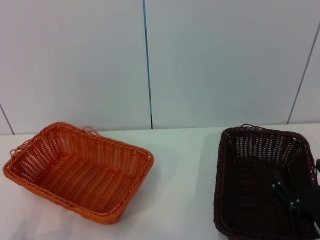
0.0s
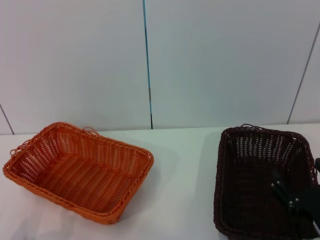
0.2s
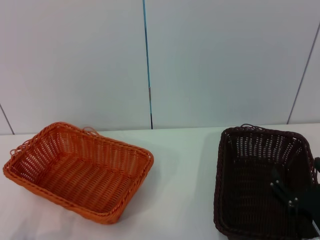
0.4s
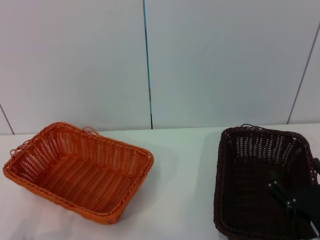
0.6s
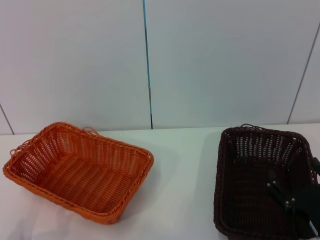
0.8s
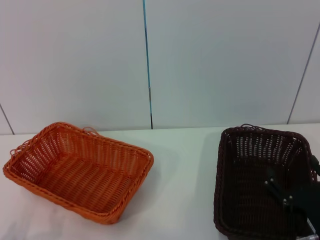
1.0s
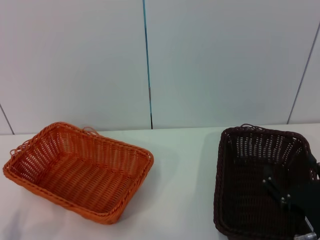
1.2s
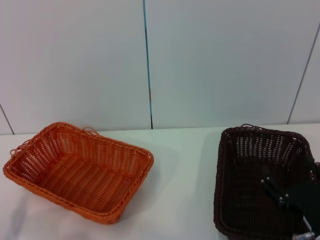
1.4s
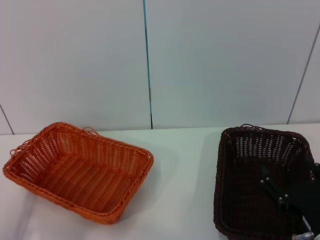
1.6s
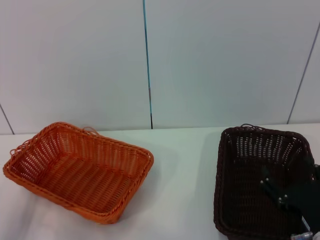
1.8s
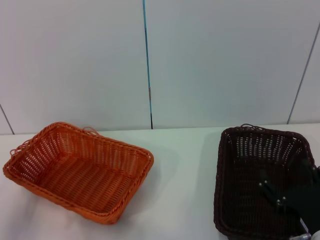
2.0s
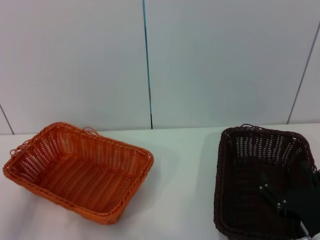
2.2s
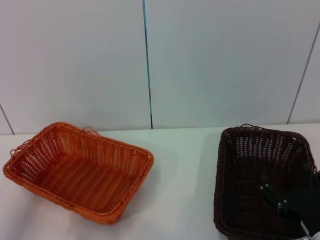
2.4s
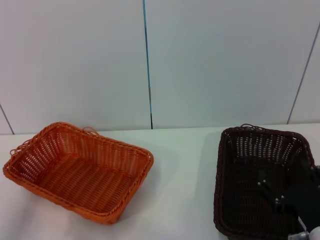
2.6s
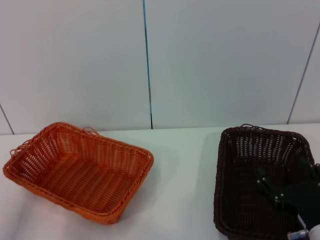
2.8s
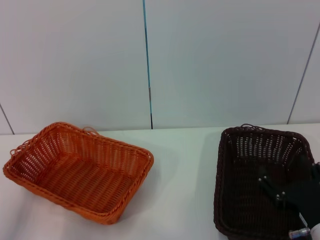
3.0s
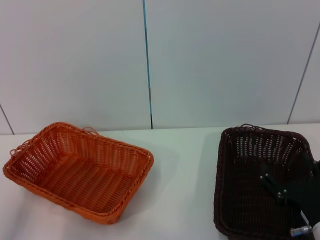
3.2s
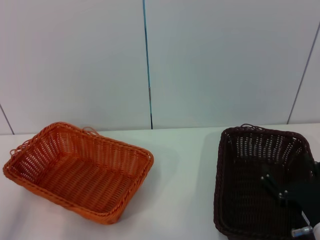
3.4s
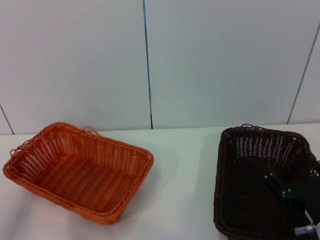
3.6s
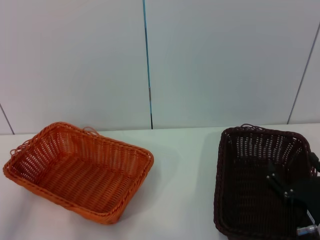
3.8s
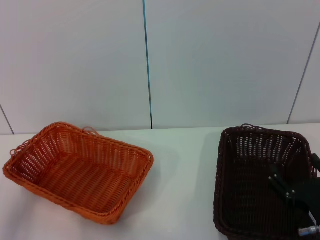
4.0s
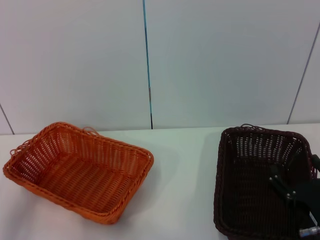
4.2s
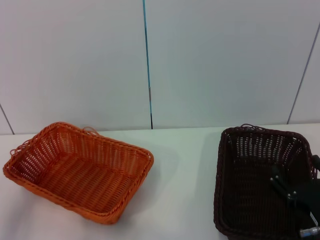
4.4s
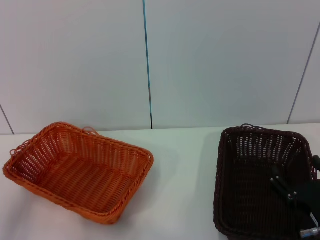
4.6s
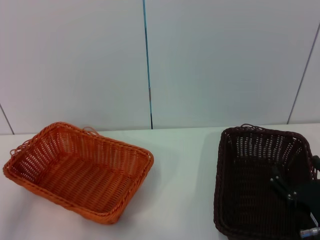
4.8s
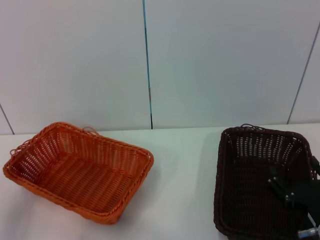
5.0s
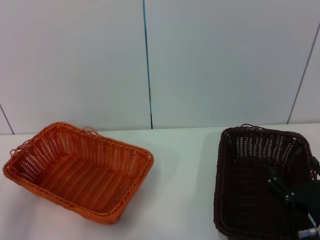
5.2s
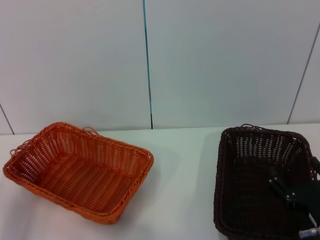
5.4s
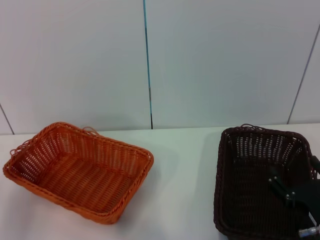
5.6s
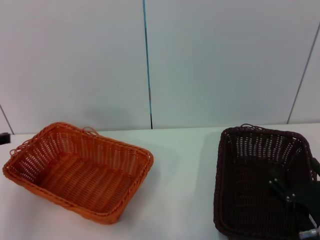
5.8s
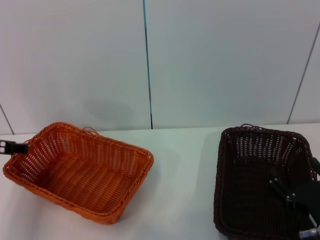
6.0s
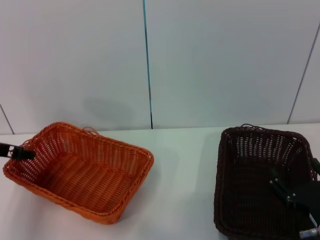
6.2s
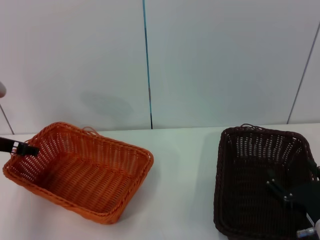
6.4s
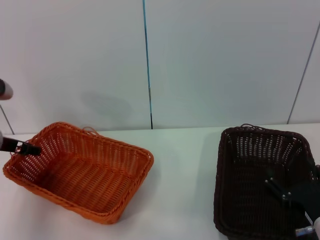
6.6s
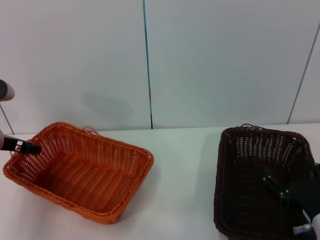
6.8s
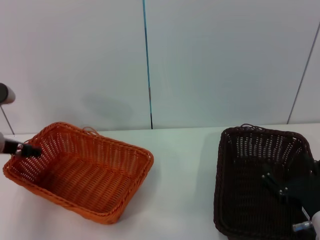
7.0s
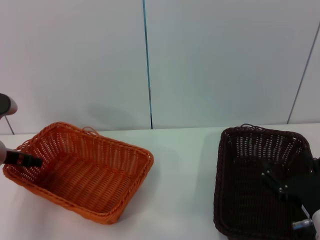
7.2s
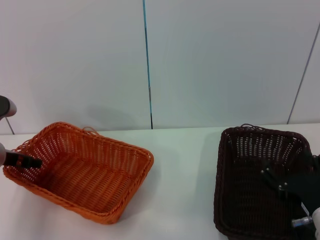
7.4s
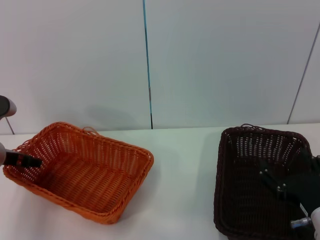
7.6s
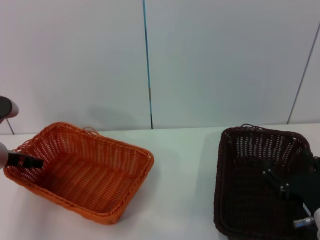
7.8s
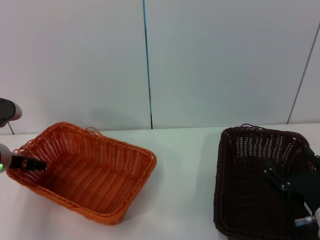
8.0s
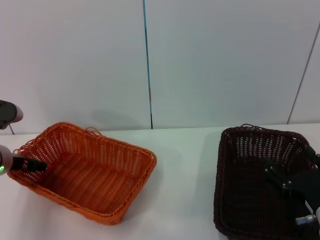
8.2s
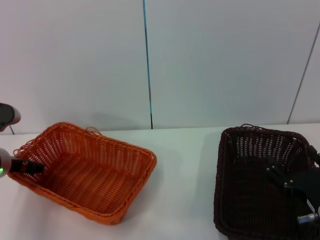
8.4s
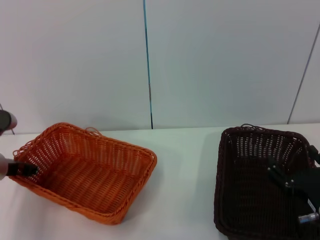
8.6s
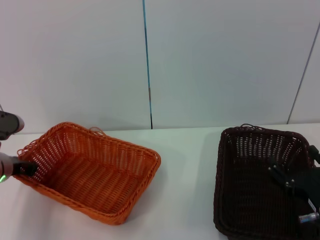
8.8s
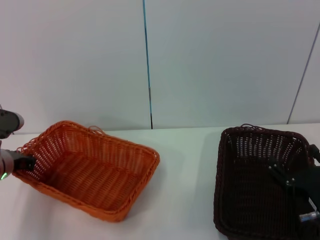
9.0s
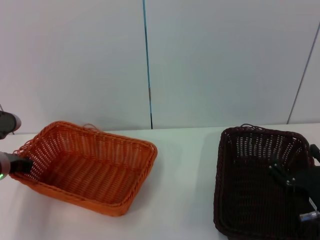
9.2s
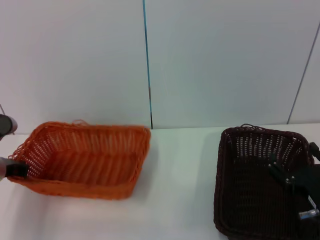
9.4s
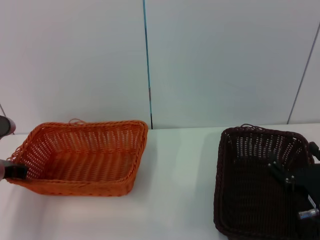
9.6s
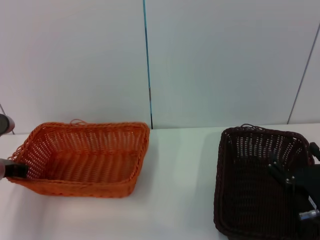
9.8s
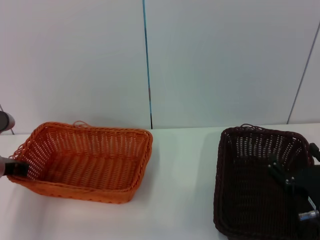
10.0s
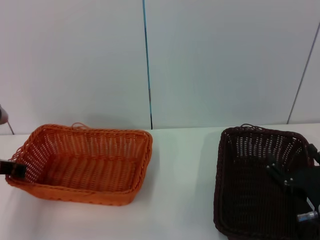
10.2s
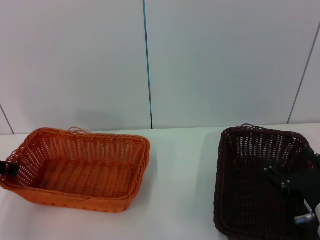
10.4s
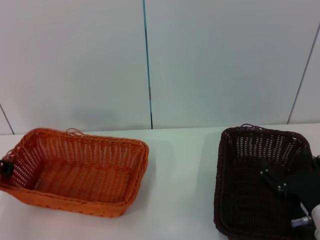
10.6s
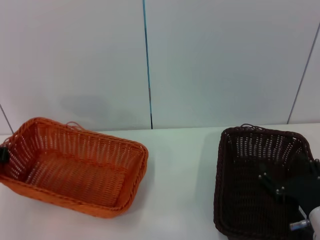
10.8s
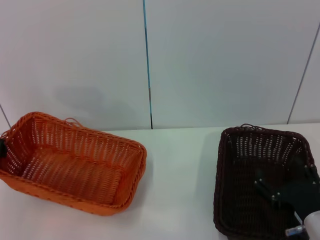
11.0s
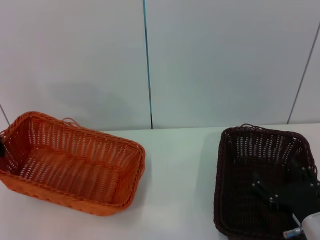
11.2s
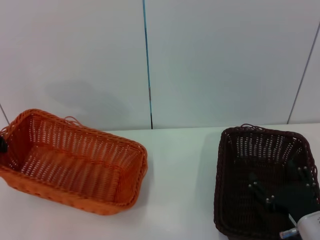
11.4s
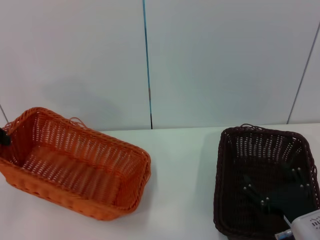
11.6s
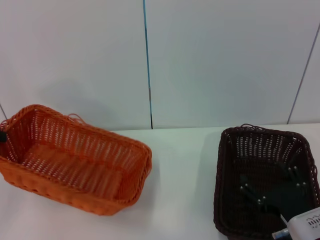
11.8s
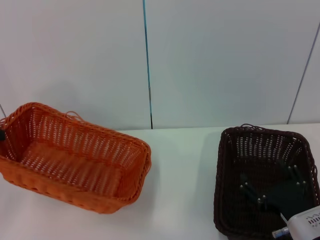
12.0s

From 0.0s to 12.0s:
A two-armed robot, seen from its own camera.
Step, from 0.0s to 10.6s: Pick up the light basket with the left gripper.
From 4.4s to 6.0s: The left gripper goes roughly 10 cm forward.
From 6.0s to 7.6s: The left gripper shifts roughly 5 cm downward.
From 7.6s to 9.0s: The left gripper closes.
From 9.0s to 10.4s: The left gripper moves roughly 5 cm.
From 10.4s to 12.0s: The left gripper travels upward and to the left by approximately 10 cm.

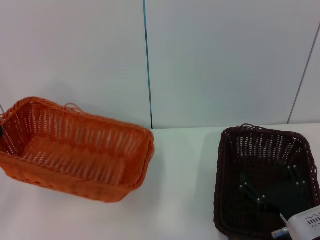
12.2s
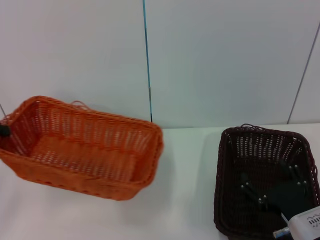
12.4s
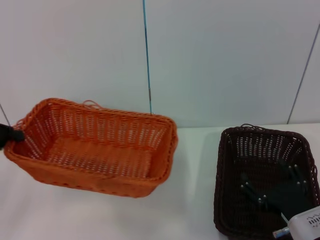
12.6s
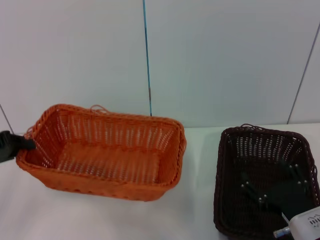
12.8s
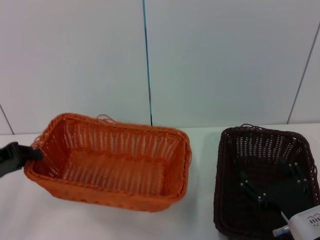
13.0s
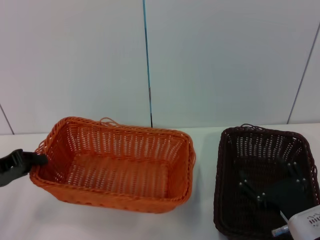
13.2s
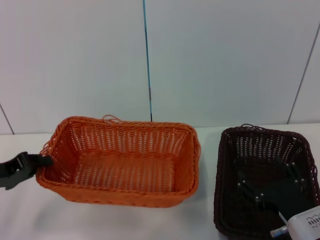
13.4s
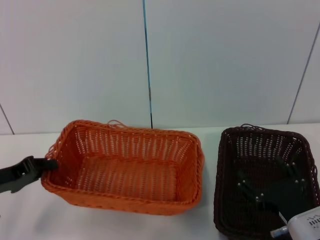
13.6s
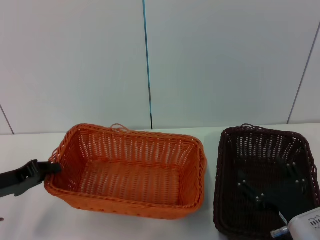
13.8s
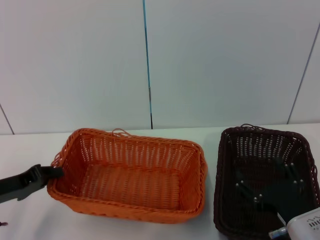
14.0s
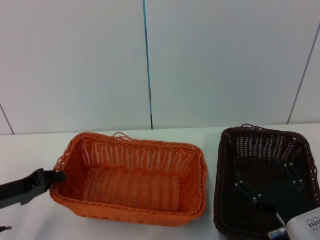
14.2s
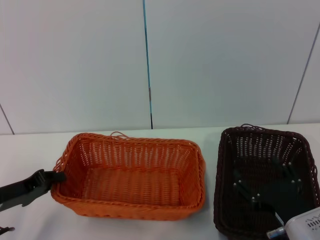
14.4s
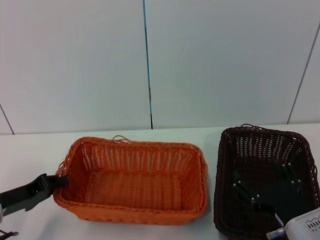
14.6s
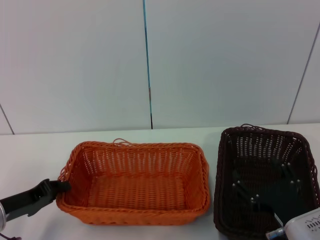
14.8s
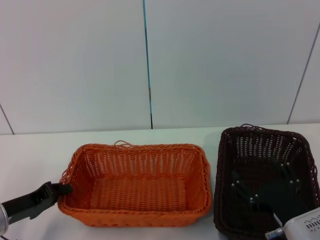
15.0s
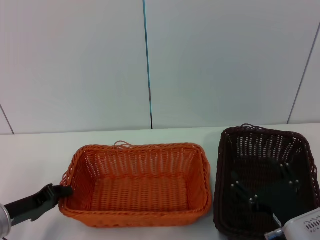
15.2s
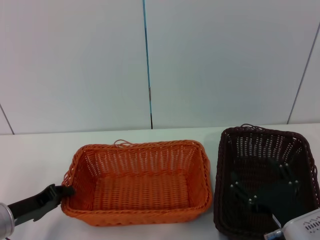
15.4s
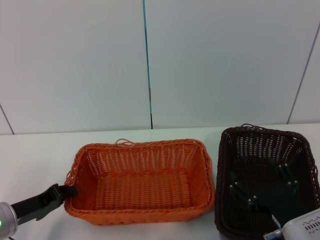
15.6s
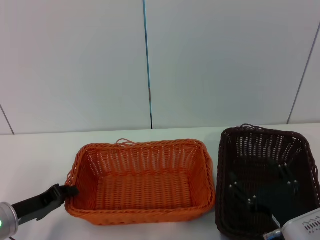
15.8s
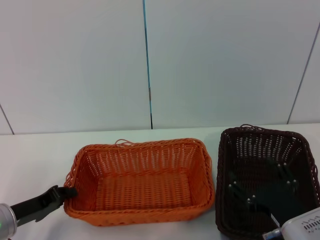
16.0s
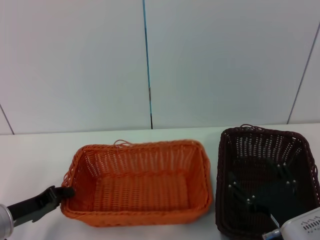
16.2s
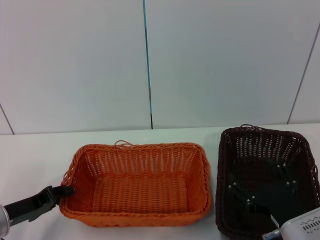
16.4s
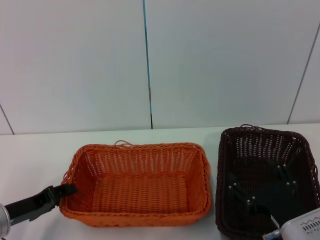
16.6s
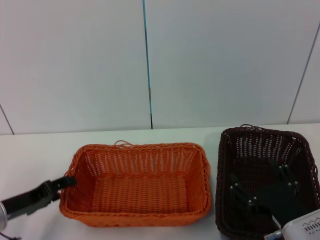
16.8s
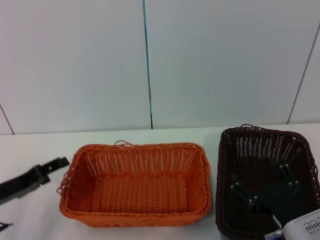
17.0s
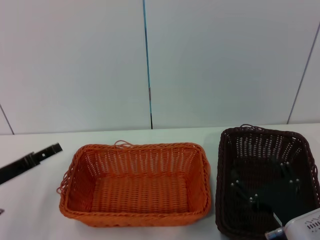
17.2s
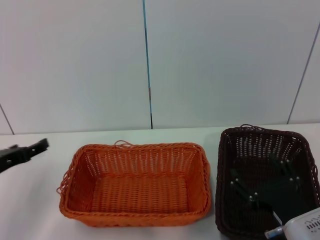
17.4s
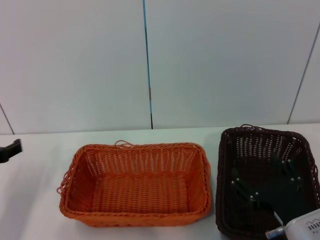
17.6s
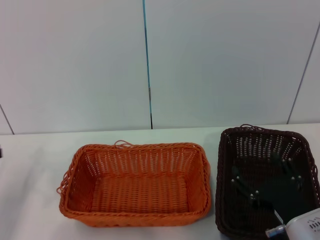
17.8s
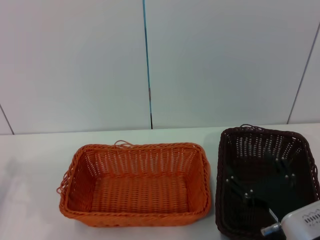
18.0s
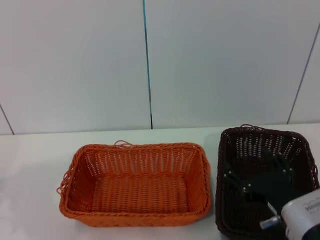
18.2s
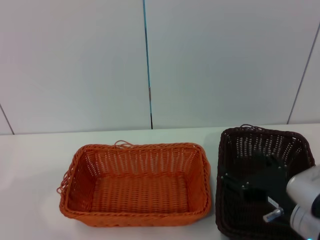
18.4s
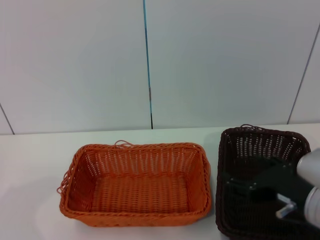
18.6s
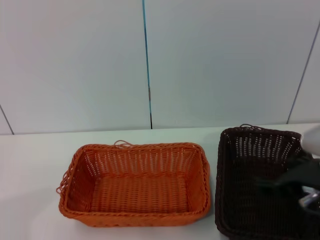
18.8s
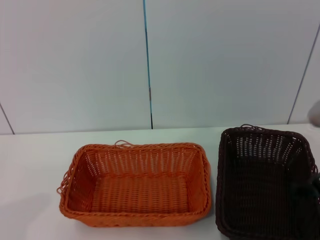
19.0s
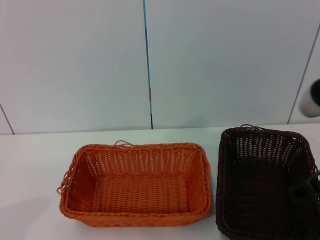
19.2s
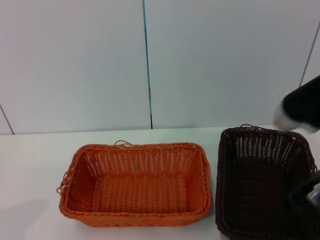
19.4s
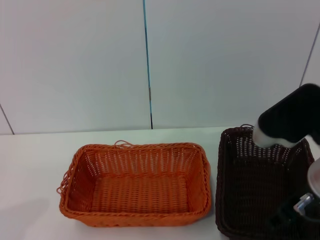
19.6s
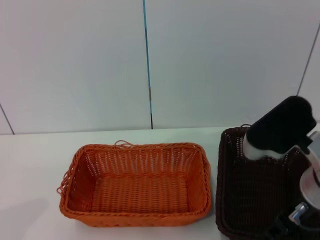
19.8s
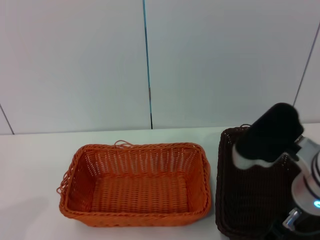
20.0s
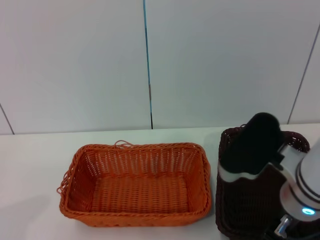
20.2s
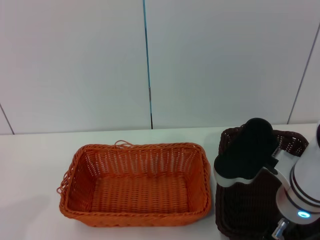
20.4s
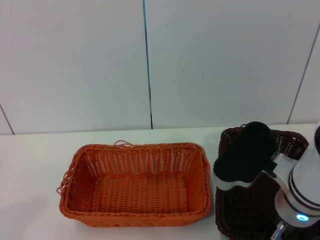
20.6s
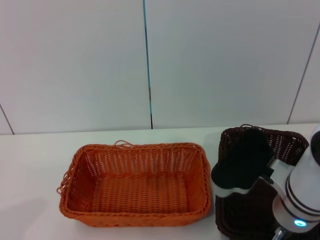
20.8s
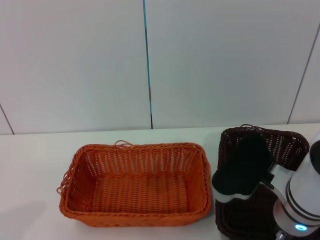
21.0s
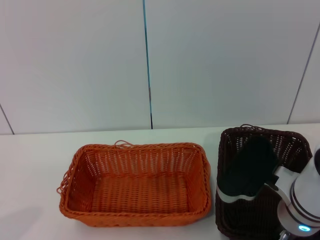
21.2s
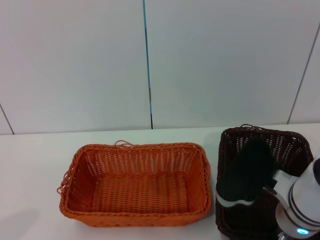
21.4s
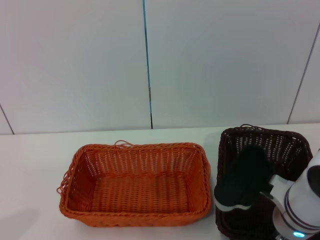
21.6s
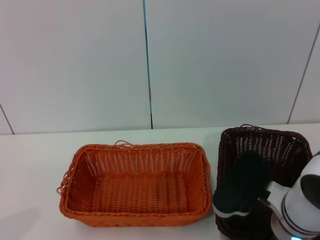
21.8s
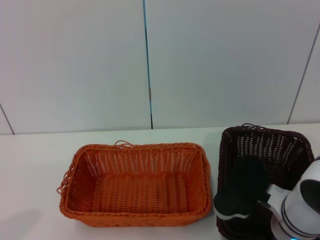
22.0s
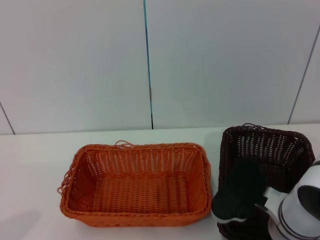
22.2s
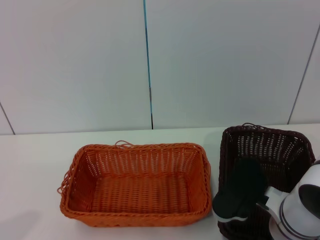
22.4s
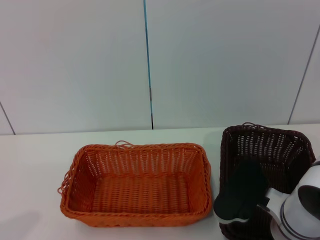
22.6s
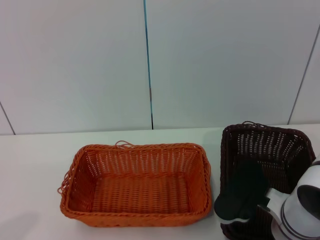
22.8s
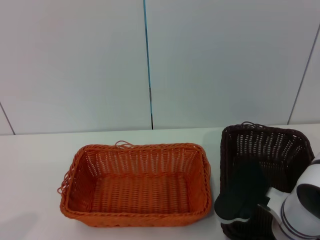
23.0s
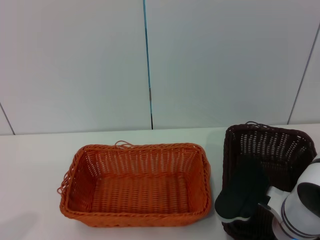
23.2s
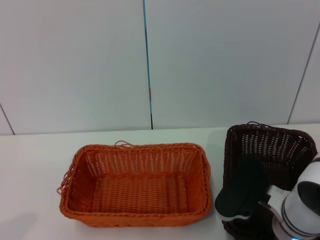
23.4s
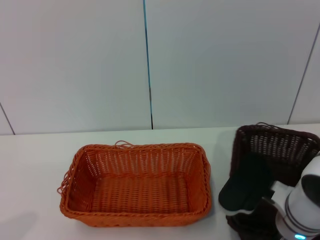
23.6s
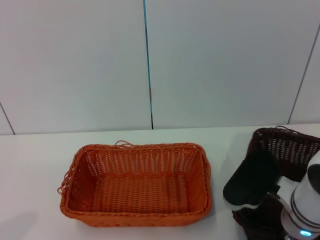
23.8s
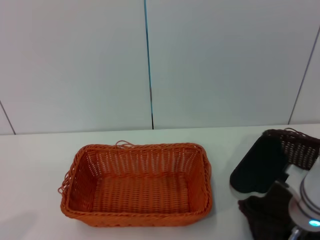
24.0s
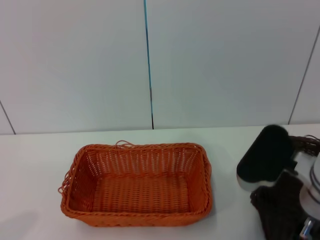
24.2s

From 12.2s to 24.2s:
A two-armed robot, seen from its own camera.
Step, from 12.2s to 16.2s: Place the light basket in the center of view with the left gripper.
From 12.2s to 13.8s: The left gripper goes some 15 cm downward, to the right and backward.
From 13.8s to 15.2s: The left gripper is displaced downward by roughly 5 cm.
From 15.2s to 16.6s: The two grippers keep their place.
From 16.6s to 18.2s: The left gripper moves to the left, some 10 cm, and opens up.
From 18.2s to 19.8s: The right gripper moves upward and forward, some 10 cm.
From 19.8s to 21.2s: The right gripper shifts by roughly 5 cm.
From 21.2s to 22.6s: There are only small adjustments of the grippers.
From 22.6s to 24.2s: The right gripper goes roughly 5 cm upward, and closes.
